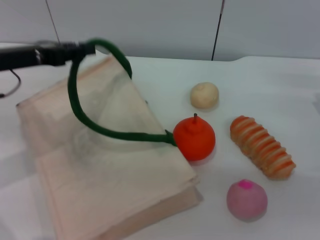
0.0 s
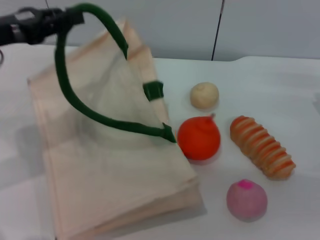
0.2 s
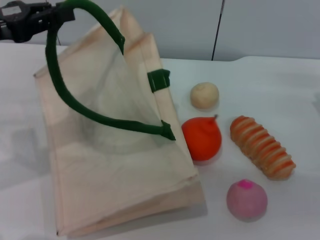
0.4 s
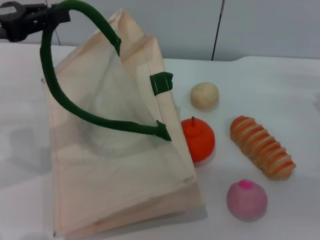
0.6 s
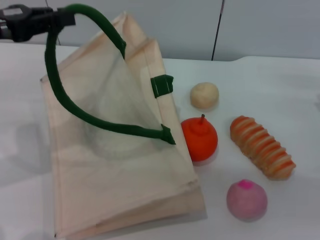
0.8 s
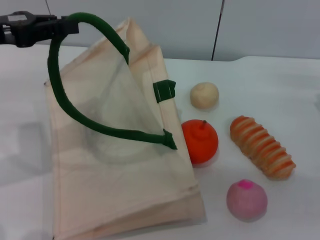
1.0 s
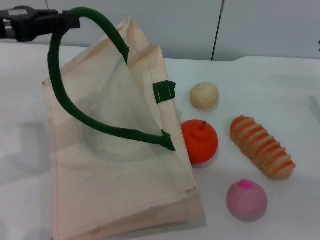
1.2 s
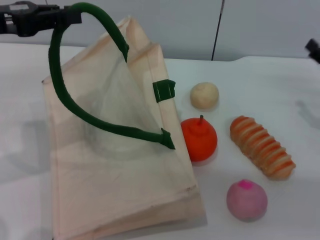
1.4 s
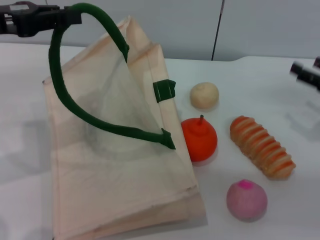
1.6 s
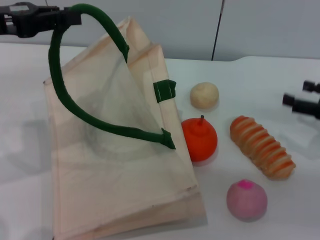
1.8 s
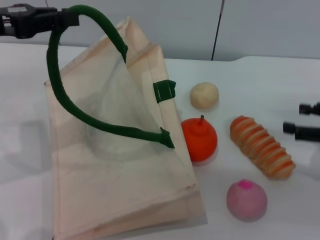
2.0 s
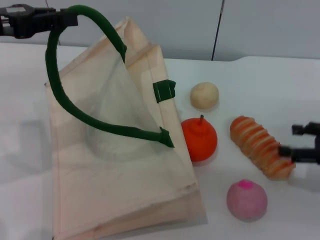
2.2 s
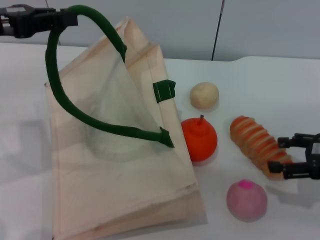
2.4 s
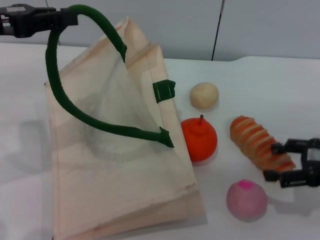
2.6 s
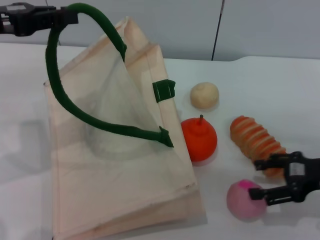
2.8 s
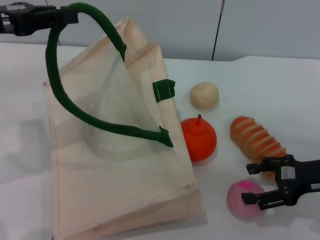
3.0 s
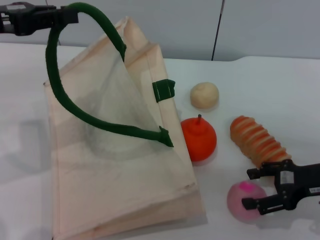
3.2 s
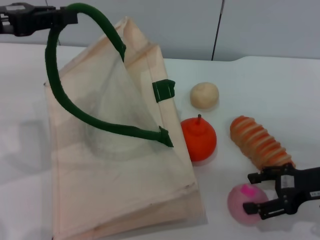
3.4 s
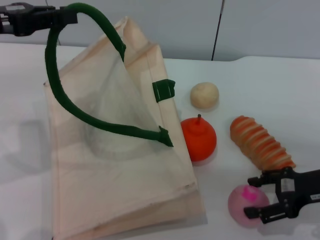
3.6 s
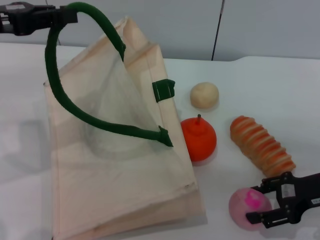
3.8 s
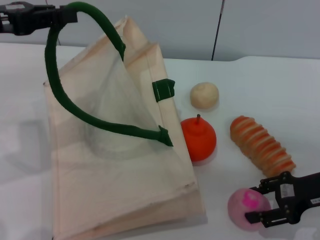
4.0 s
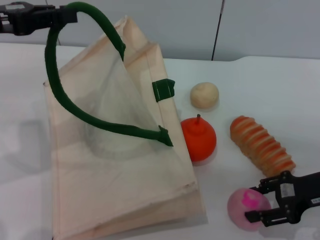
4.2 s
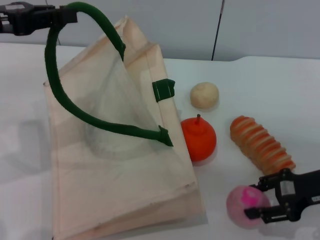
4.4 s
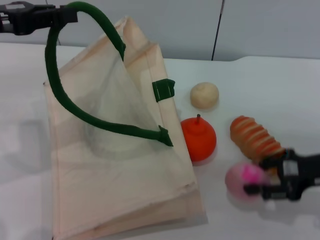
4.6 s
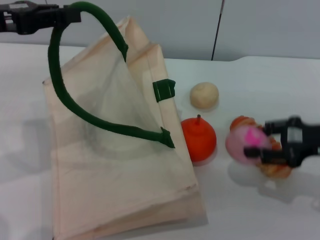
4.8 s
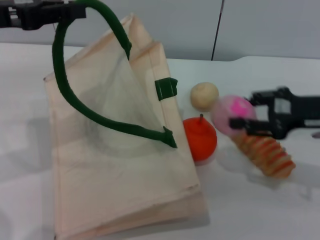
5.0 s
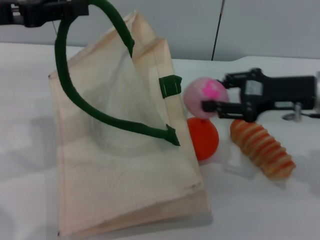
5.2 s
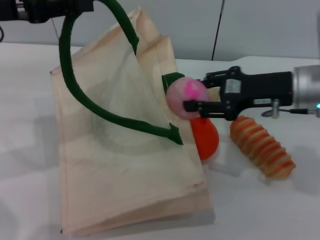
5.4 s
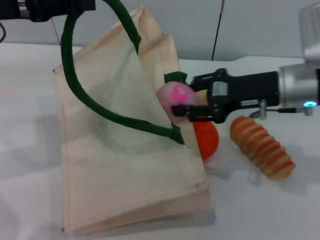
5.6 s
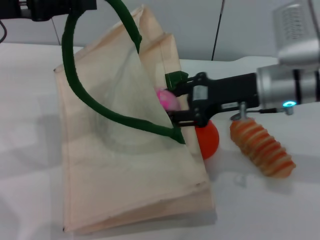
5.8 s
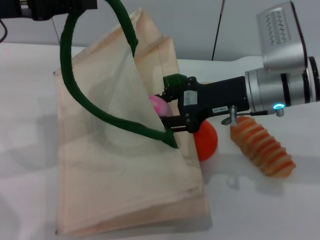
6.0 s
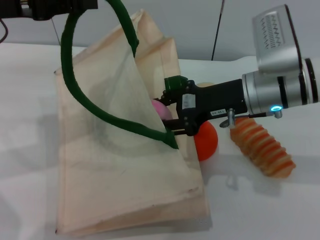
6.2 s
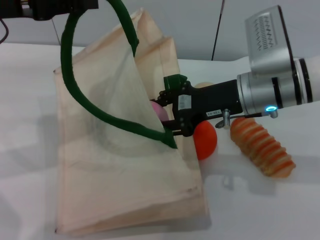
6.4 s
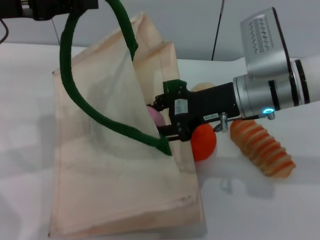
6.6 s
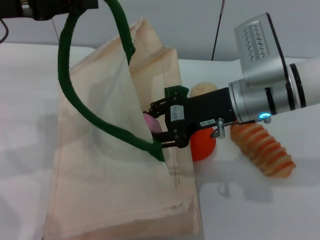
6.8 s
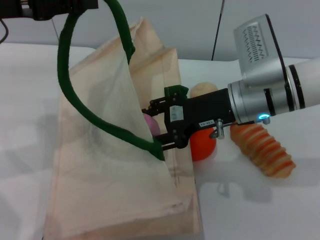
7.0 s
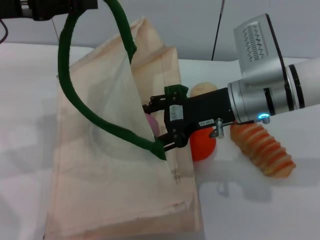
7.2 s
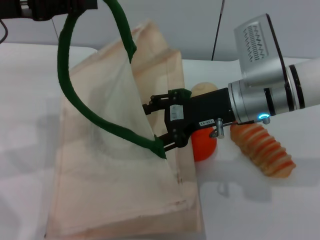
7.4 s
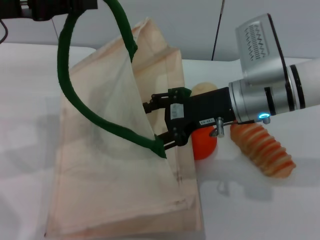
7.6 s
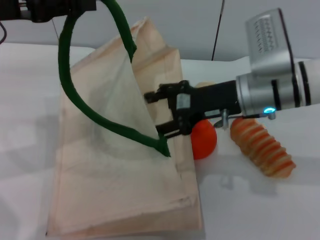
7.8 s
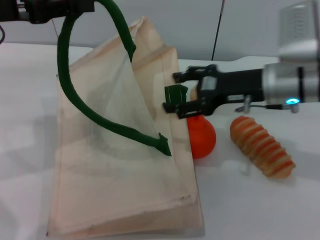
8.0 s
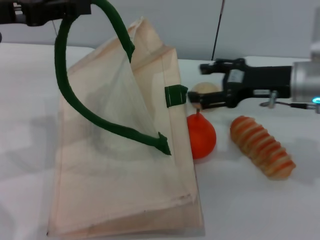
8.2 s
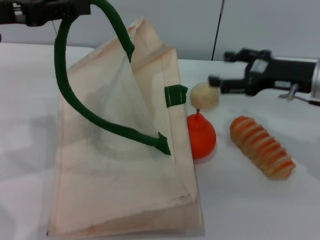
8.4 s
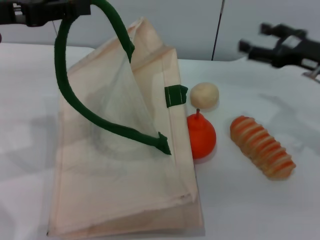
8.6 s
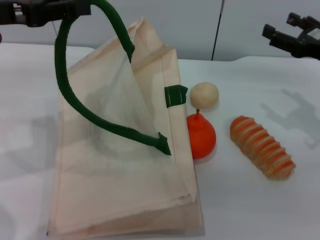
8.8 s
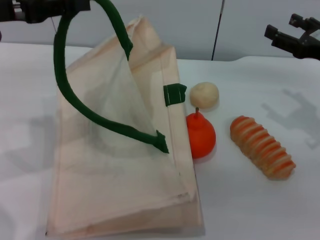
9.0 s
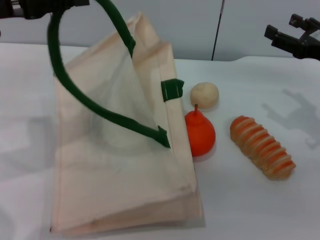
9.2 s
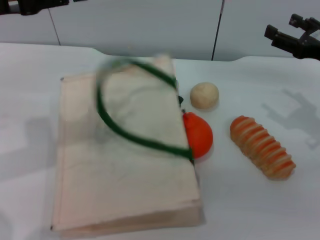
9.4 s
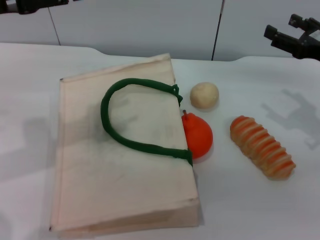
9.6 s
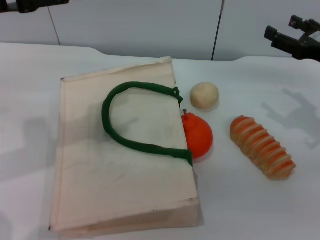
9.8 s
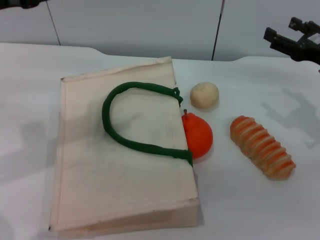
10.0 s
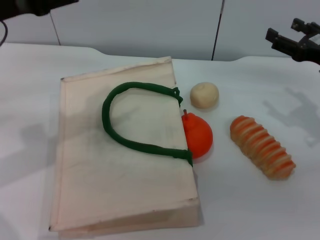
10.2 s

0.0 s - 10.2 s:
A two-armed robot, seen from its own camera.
Task of the whole recording: pick up the peach from the table and place it in the white handbag.
Step, 0.6 s - 4.6 s: Pick up the peach with the right gripper.
Step, 4.8 s - 7.8 s: Place the peach into the woven bag with the right gripper.
0.0 s - 1.4 s: The left gripper goes roughly 5 cm upward.
1.4 s - 3.0 s: The right gripper moves backward, some 5 cm.
3.0 s - 4.4 s: The right gripper closes.
4.4 s - 5.8 s: The right gripper travels to the left, forward and upward by roughly 15 cm.
5.8 s - 7.2 s: The right gripper opens.
7.2 s - 8.8 s: The right gripper heads to the right, covering some 15 cm, and opens up.
8.8 s - 10.2 s: The left gripper opens.

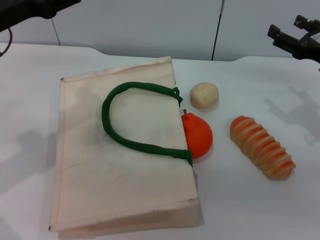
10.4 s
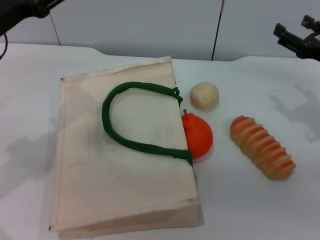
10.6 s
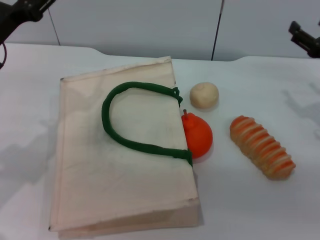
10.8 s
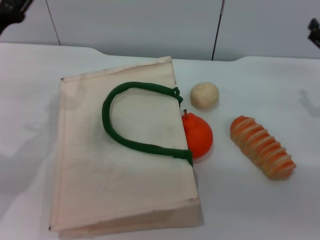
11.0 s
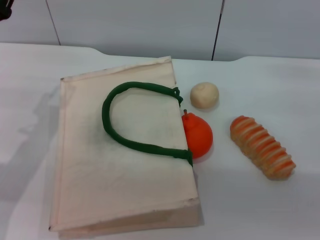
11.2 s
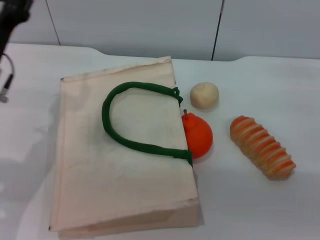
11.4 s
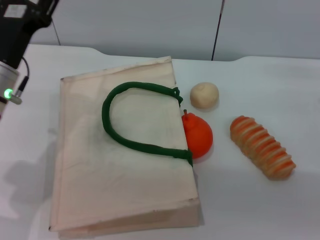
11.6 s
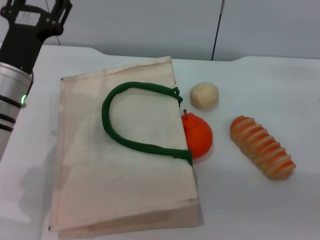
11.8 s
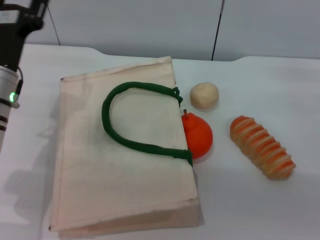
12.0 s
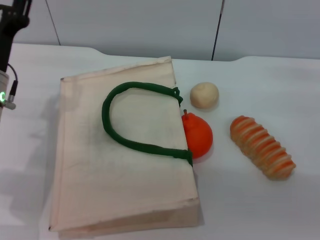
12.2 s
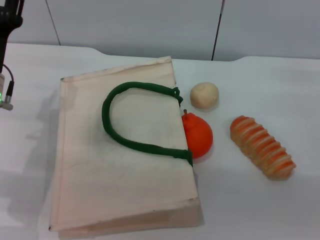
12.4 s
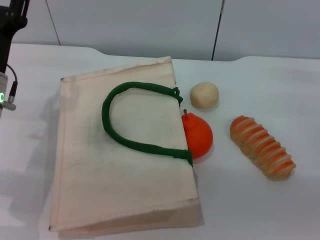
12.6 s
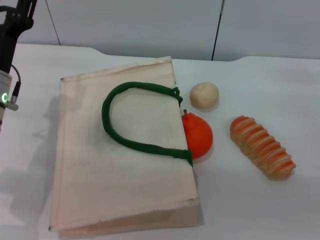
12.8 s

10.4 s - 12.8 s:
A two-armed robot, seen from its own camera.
Task of the whole recording: pick up the peach from the table and place it in the white handbag.
10.4 s - 11.6 s: The left gripper travels downward by some 10 cm.
11.6 s - 12.8 s: The grippers move only a little.
